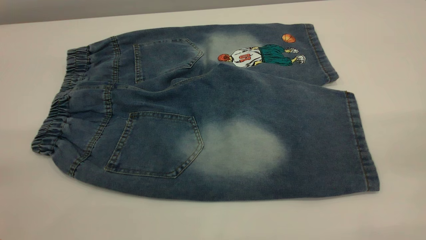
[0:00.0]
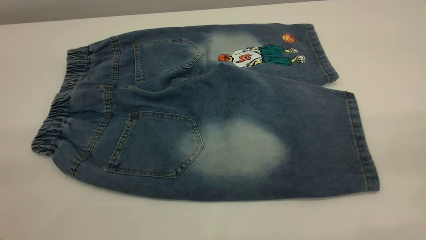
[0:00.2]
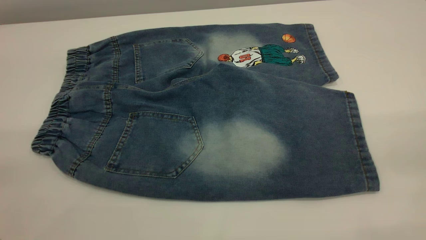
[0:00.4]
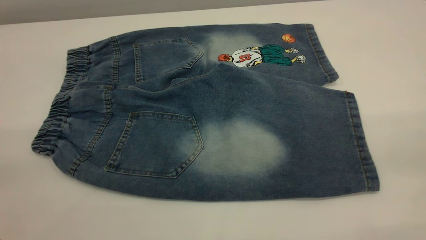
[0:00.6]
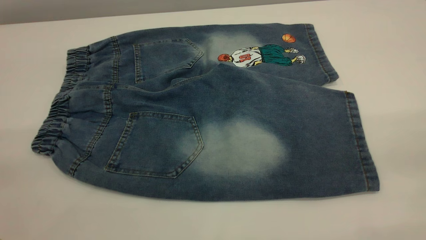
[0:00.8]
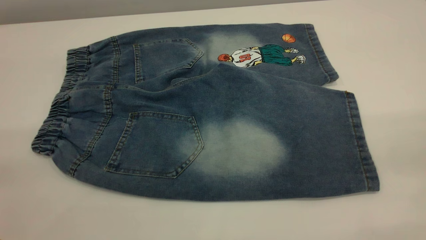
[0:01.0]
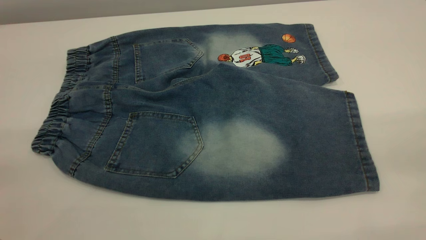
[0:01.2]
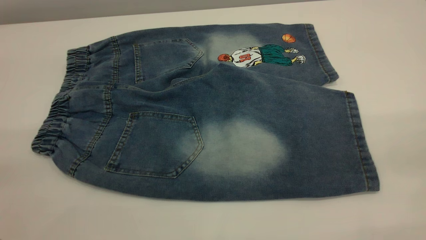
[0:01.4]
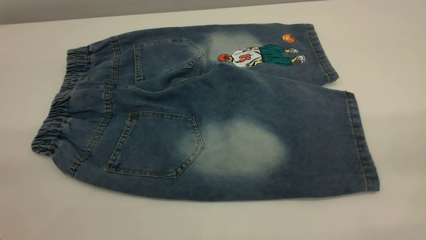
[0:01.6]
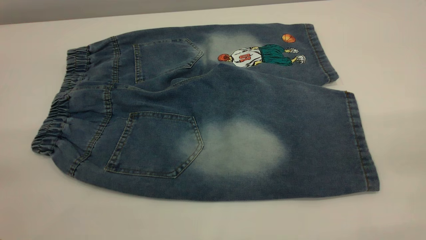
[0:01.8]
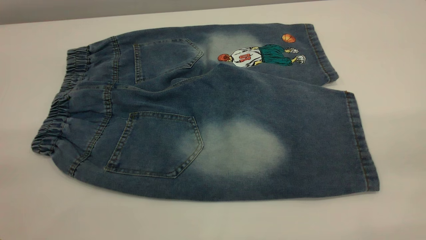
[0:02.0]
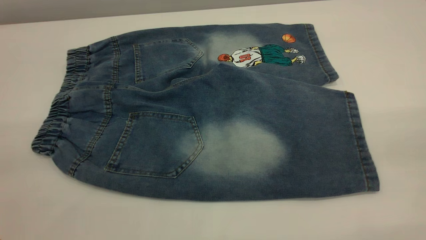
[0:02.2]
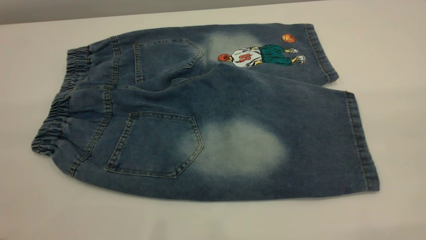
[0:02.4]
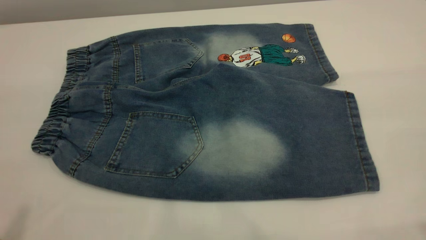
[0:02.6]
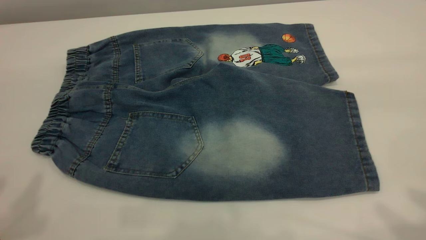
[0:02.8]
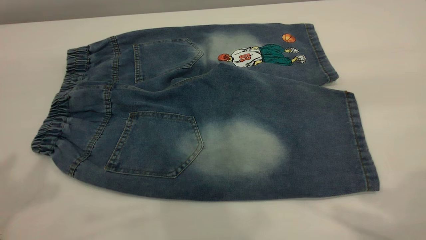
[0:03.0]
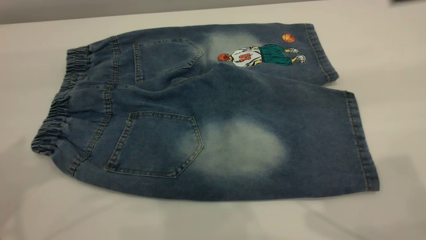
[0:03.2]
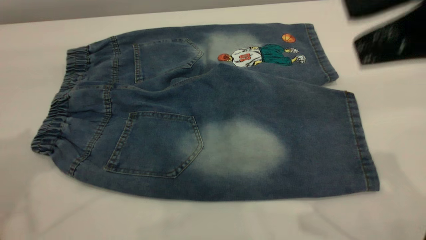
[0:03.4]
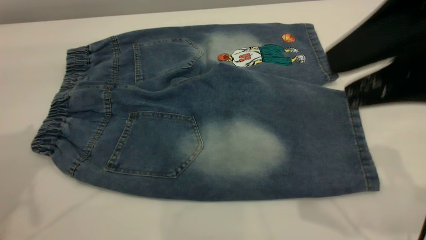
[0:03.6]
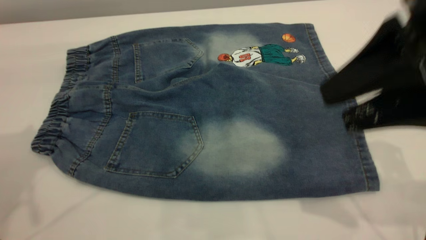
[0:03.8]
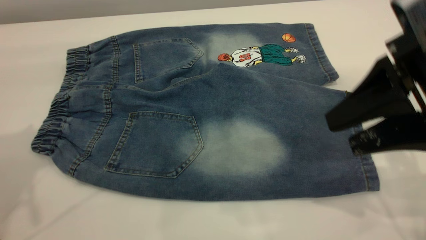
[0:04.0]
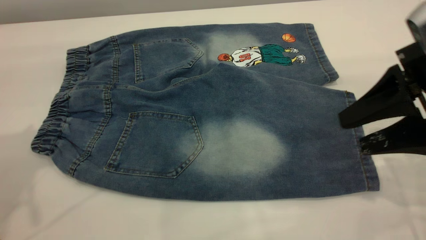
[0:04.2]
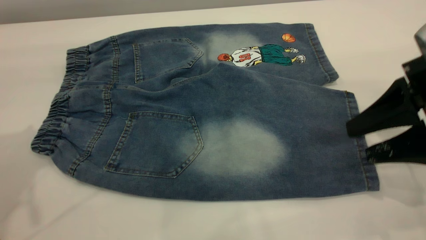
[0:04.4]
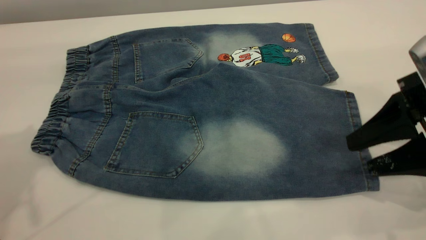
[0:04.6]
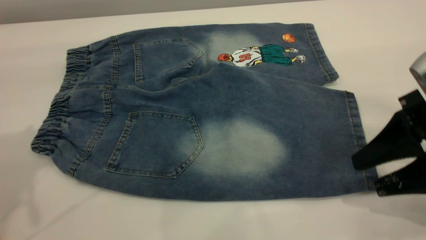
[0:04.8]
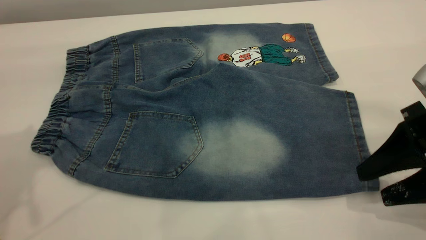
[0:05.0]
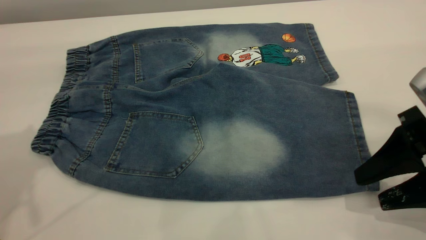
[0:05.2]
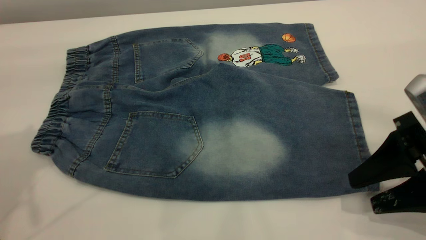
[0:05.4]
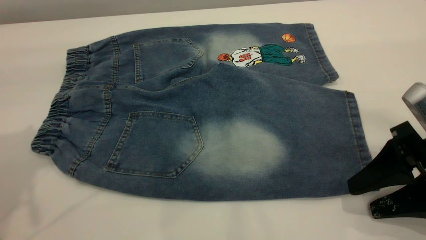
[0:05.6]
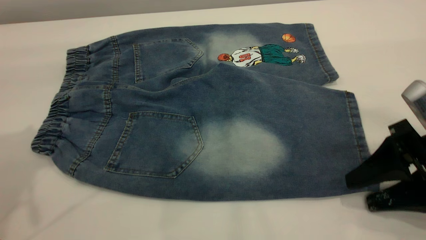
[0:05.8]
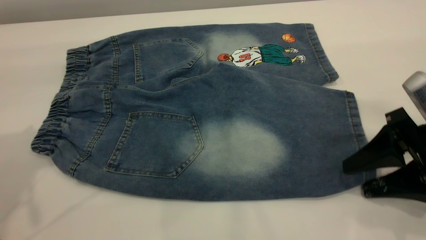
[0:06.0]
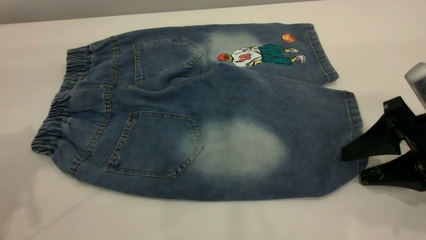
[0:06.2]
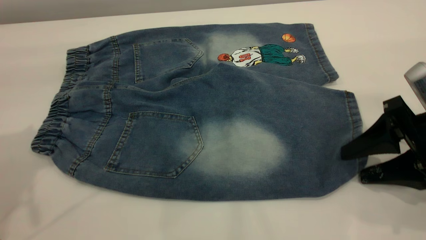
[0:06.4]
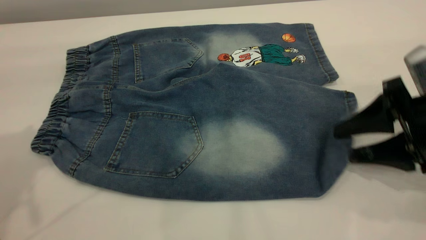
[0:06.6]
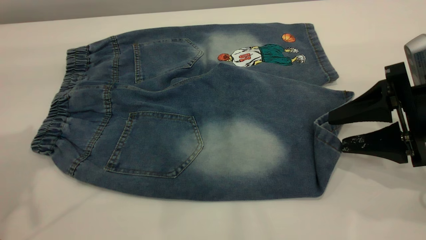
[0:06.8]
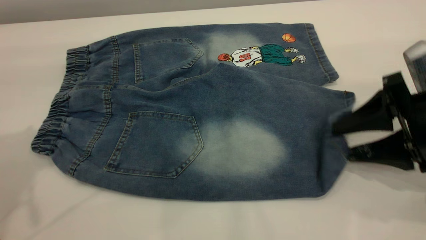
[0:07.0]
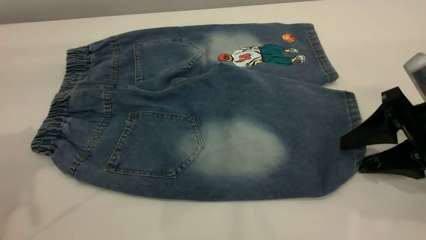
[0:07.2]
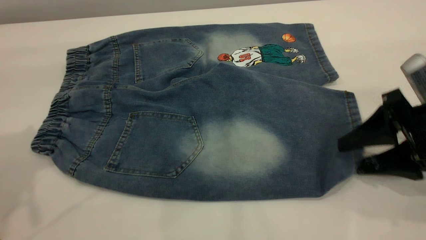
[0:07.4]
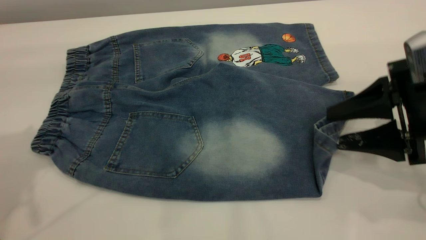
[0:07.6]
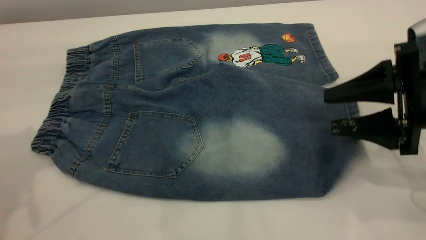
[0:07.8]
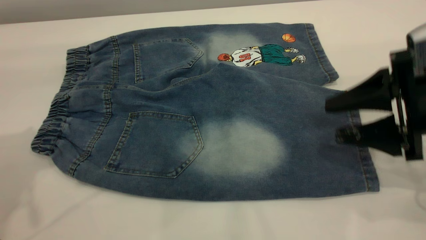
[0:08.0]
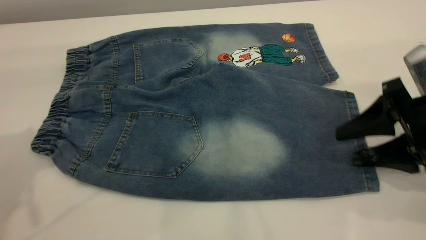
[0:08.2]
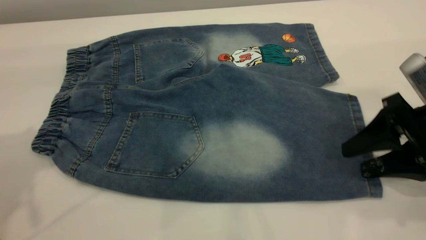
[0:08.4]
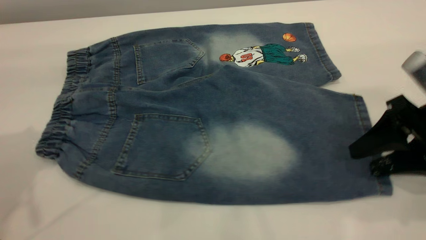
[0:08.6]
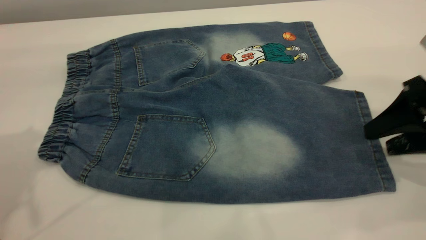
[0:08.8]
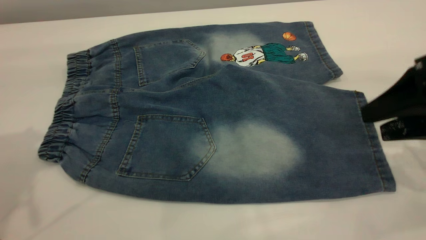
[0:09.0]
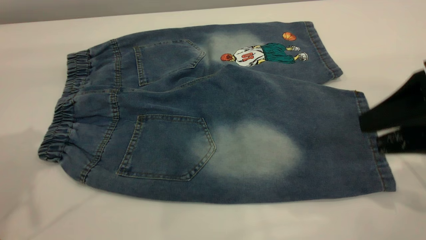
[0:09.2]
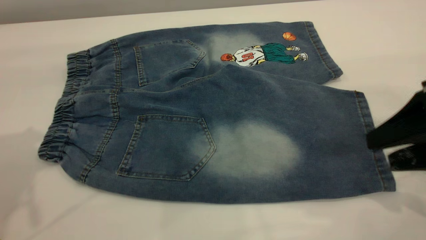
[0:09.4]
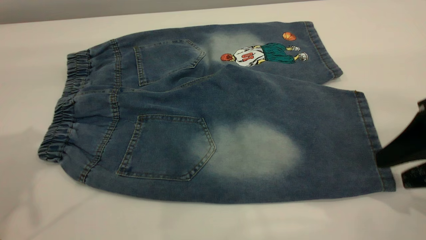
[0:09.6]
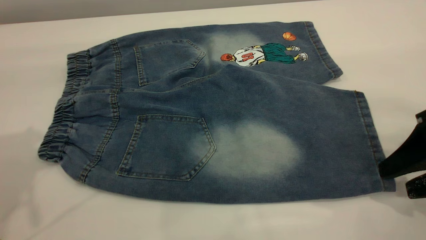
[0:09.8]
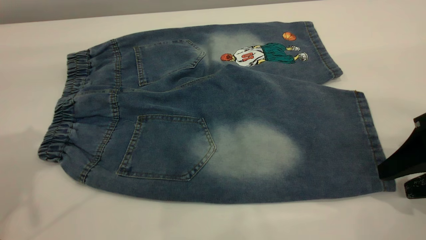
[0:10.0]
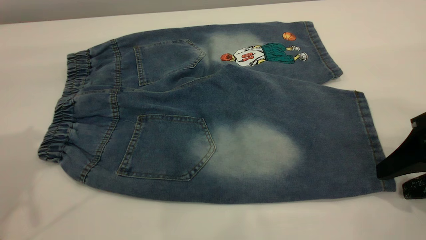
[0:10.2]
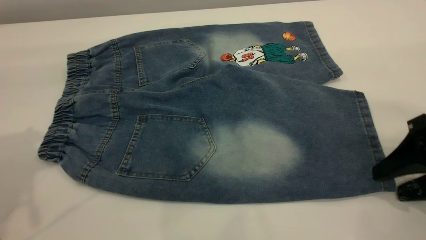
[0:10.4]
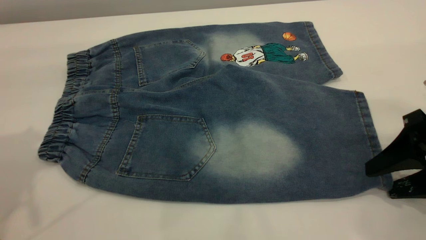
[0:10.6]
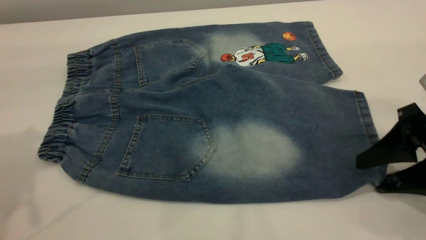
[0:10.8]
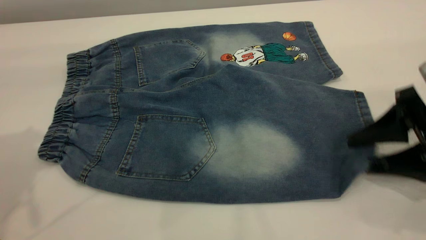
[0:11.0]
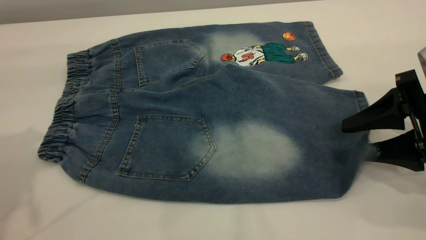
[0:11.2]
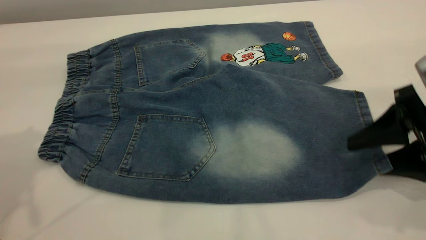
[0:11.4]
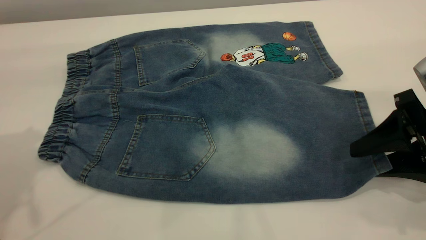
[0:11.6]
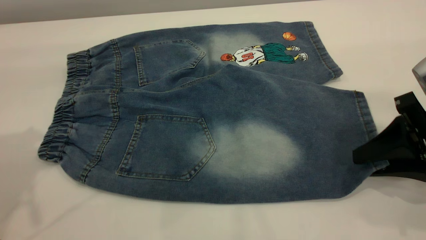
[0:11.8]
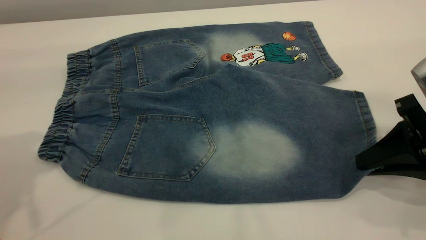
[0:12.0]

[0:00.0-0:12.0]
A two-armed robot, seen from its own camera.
0:00.0 to 0:01.6: Neither gripper changes place.
0:01.6 to 0:03.0: The right gripper heads forward and to the left, covering approximately 15 cm.
0:03.0 to 0:04.4: The right gripper moves downward, some 20 cm. The left gripper shifts approximately 5 cm forward.
0:04.4 to 0:06.0: The right gripper heads downward, covering about 5 cm.
0:06.0 to 0:07.6: The grippers move only a little.
0:09.0 to 0:10.4: The right gripper heads downward, covering some 5 cm.
0:10.4 to 0:12.0: The right gripper closes.

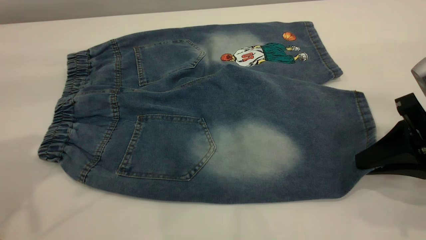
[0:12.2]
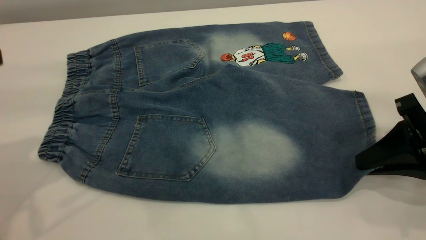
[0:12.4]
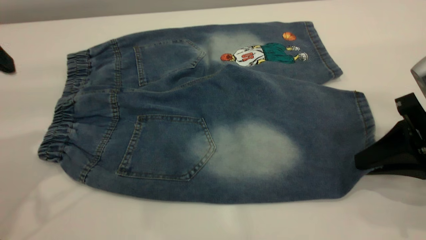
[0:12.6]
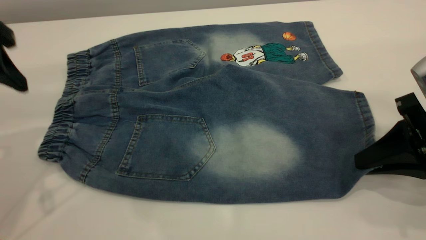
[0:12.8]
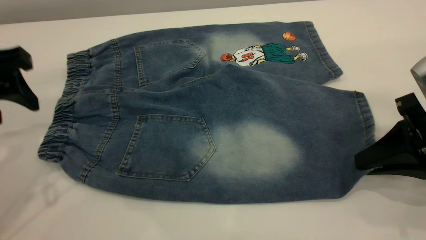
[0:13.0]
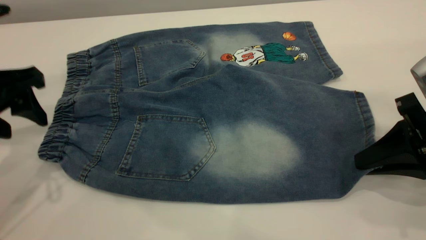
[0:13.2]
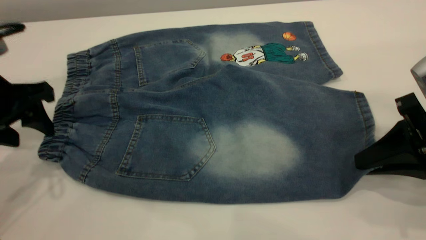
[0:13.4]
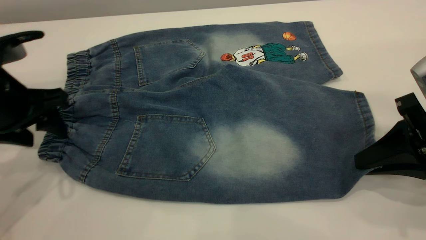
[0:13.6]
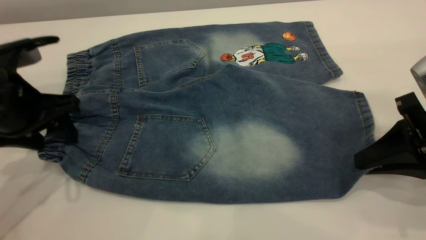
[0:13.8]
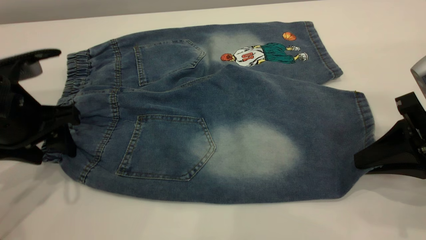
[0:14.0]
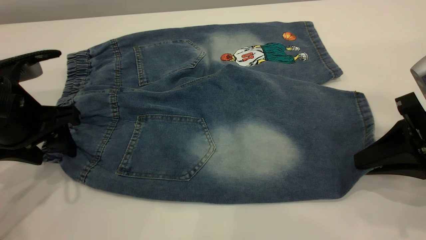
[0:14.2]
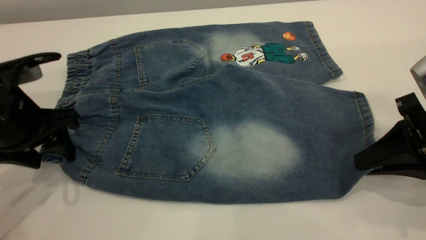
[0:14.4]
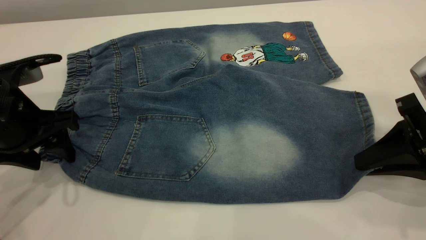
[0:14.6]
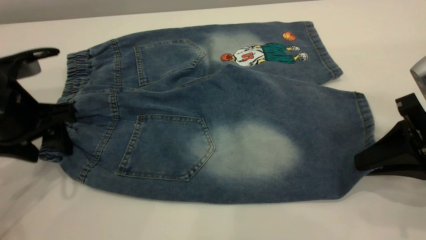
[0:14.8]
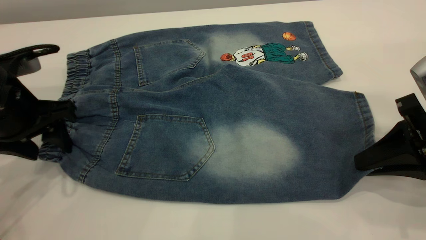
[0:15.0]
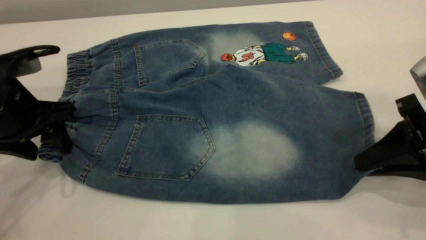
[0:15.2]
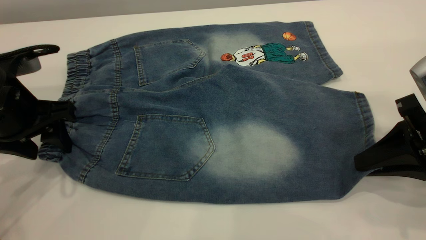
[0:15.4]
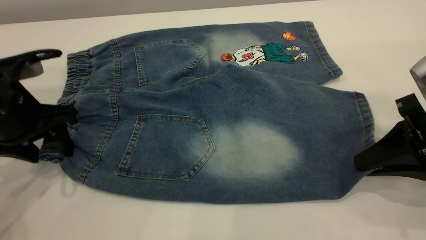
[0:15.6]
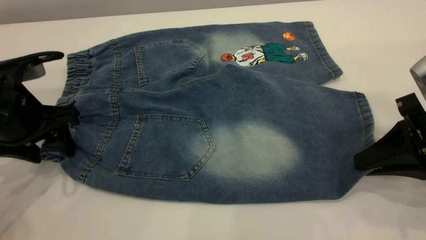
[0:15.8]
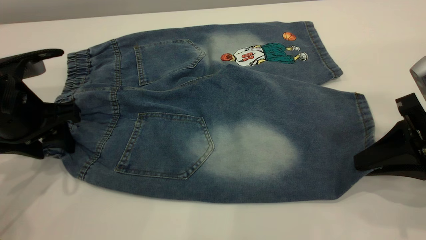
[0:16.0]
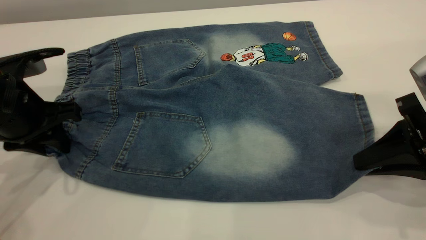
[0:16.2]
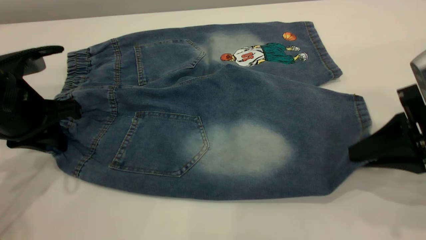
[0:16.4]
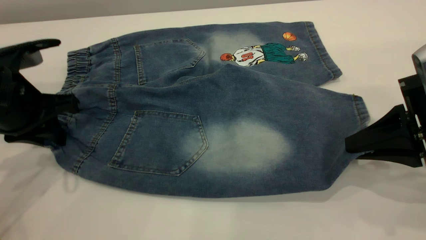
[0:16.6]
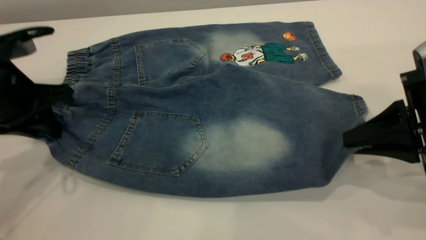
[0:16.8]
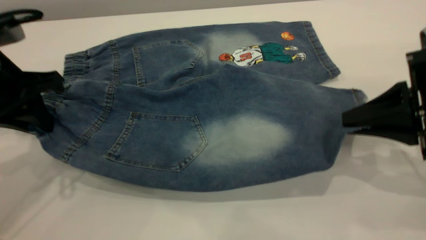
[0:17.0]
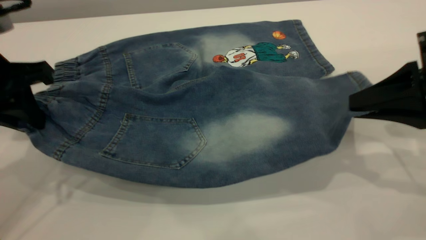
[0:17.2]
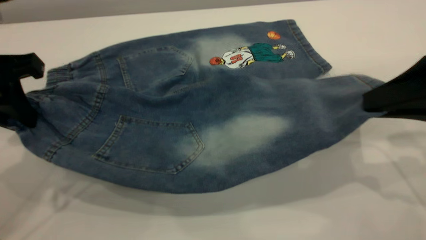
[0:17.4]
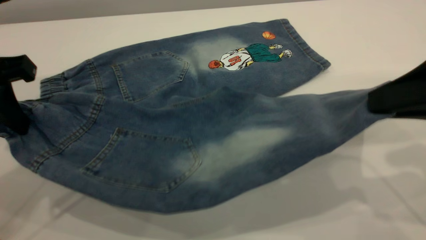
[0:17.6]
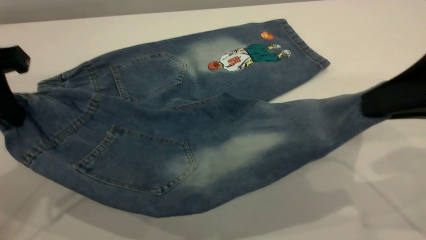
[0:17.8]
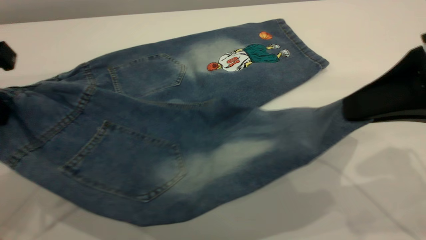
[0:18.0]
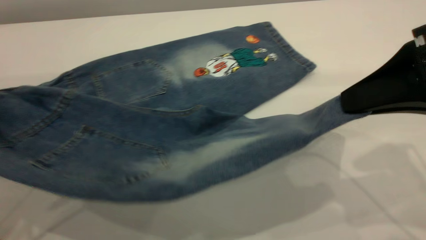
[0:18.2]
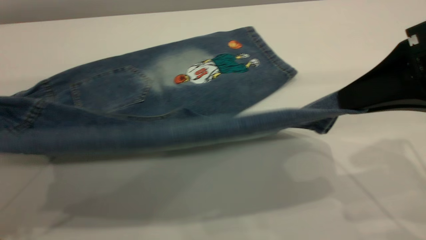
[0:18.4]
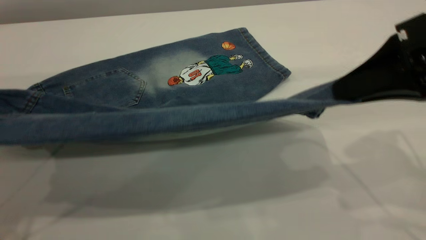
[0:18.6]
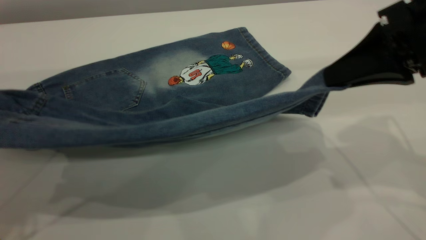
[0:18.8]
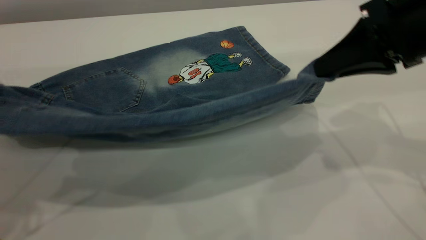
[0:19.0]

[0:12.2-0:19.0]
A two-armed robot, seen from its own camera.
0:12.2 to 0:13.6: The left gripper moves downward, some 15 cm.
0:13.6 to 0:15.0: The grippers make only small movements.
0:15.0 to 0:16.2: The left gripper closes up.
0:16.2 to 0:17.6: The grippers both shift upward by roughly 10 cm.
0:17.6 to 0:19.0: The right gripper travels forward by some 10 cm.
